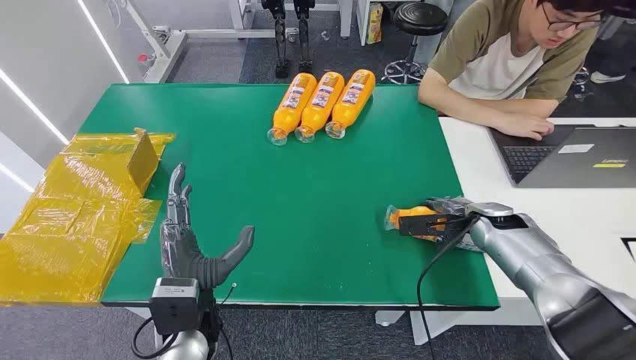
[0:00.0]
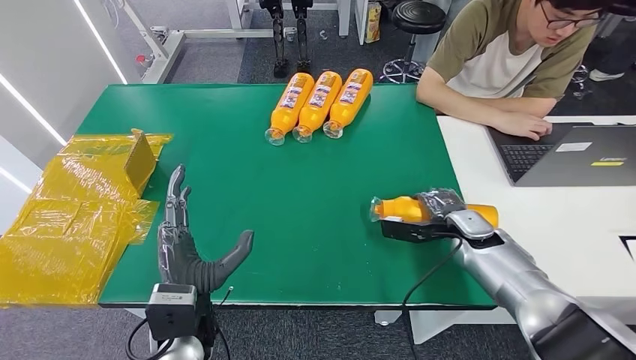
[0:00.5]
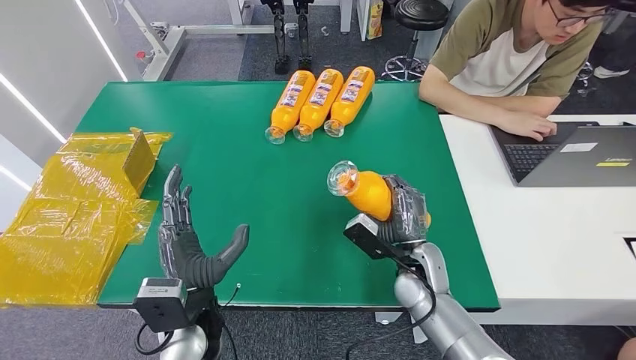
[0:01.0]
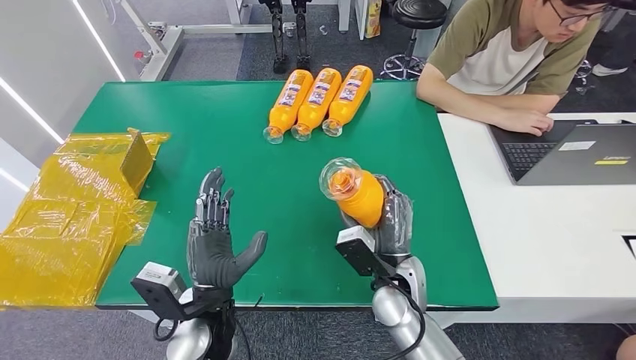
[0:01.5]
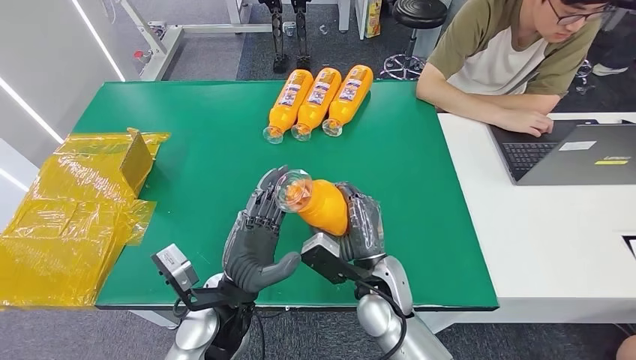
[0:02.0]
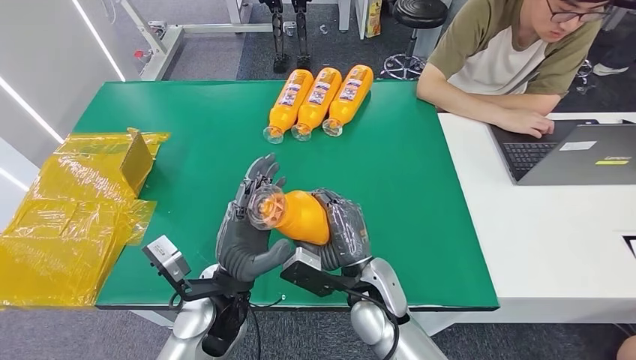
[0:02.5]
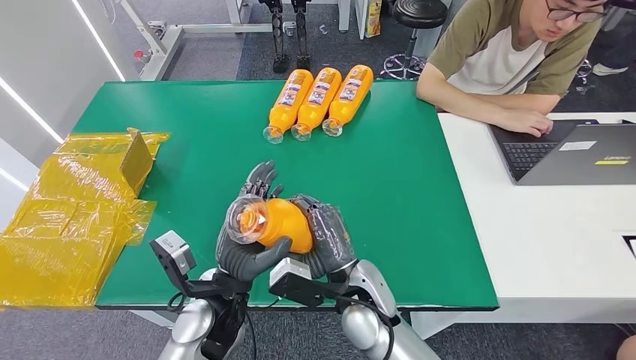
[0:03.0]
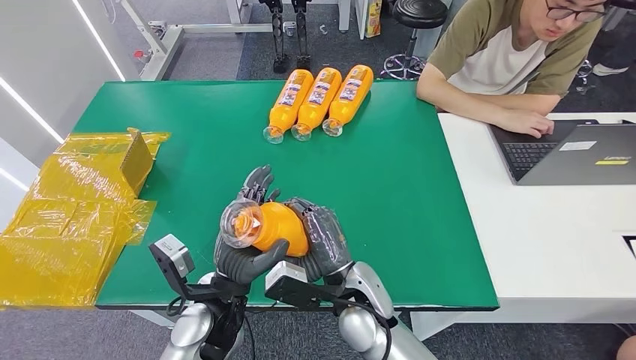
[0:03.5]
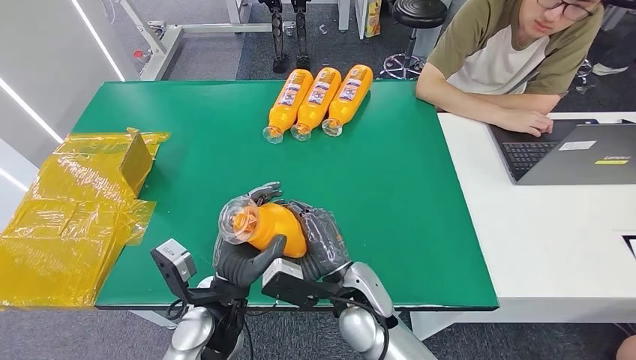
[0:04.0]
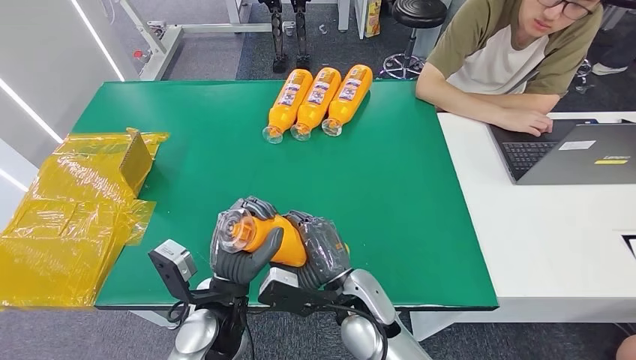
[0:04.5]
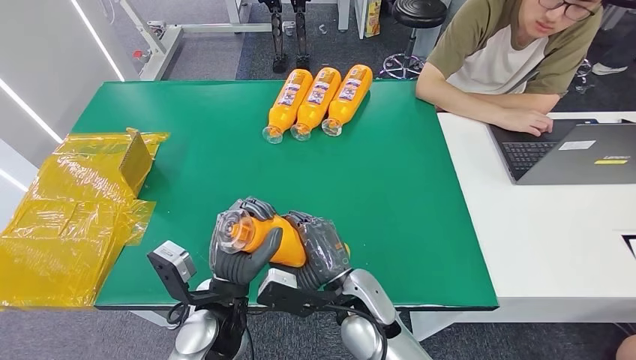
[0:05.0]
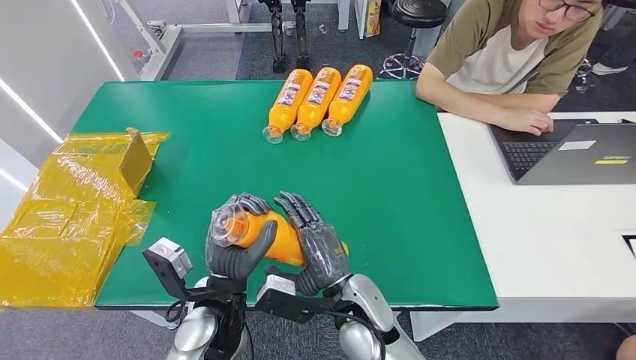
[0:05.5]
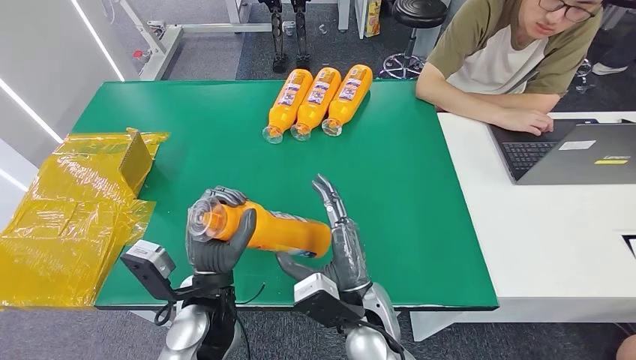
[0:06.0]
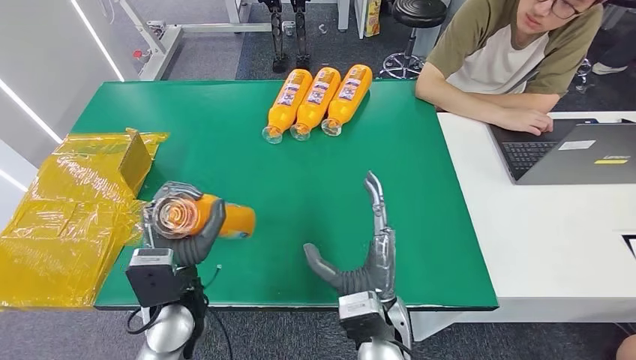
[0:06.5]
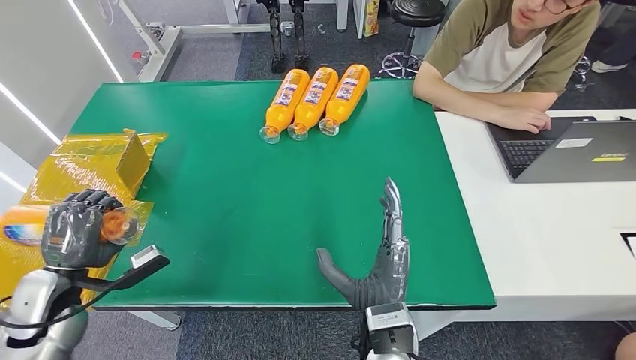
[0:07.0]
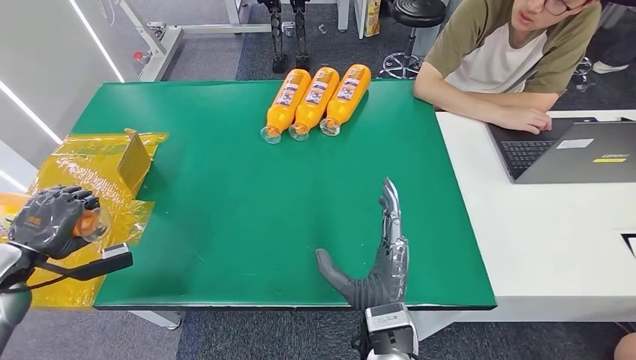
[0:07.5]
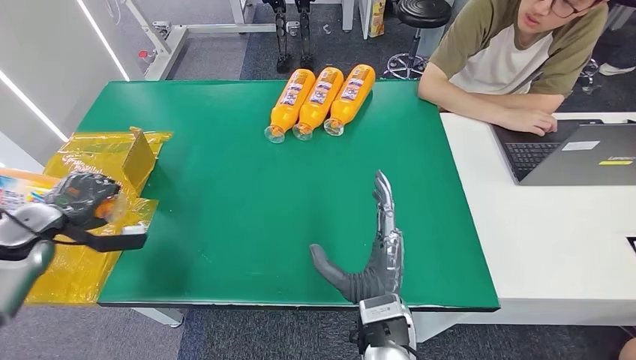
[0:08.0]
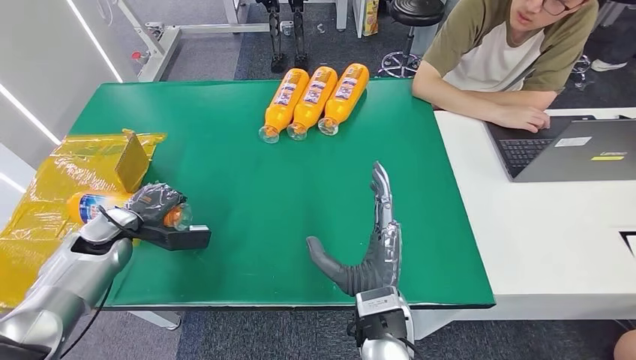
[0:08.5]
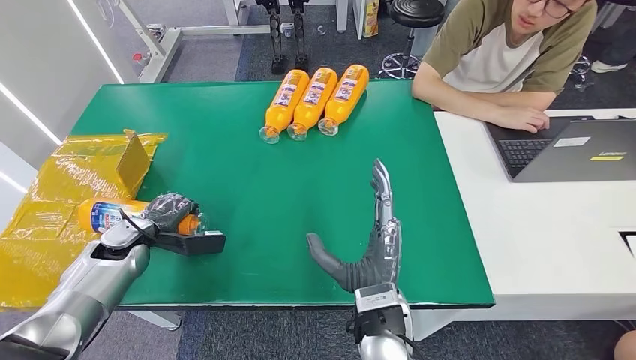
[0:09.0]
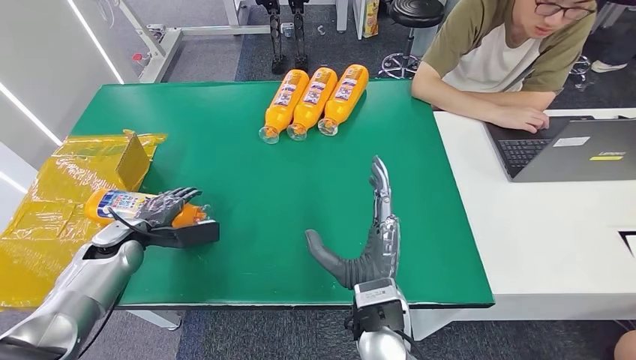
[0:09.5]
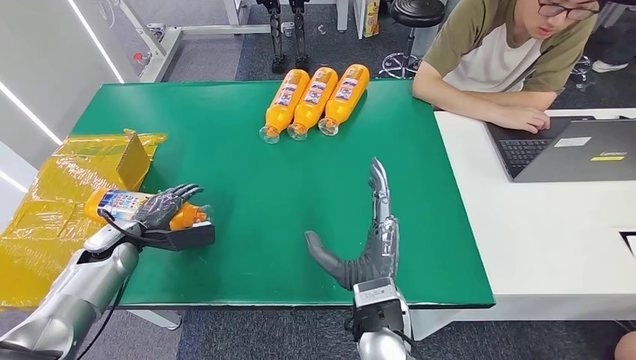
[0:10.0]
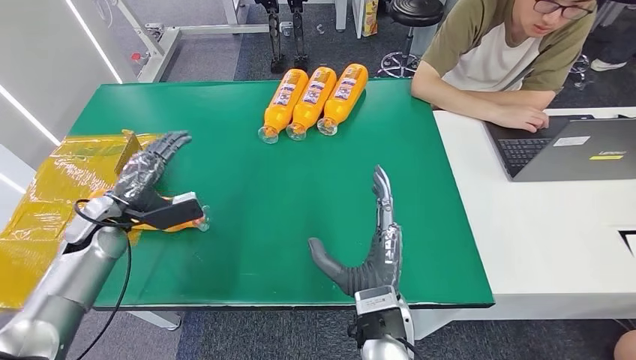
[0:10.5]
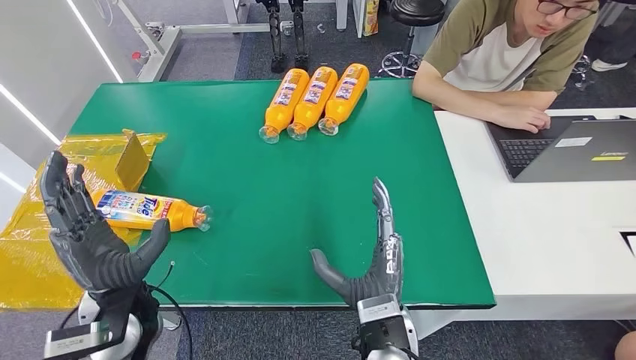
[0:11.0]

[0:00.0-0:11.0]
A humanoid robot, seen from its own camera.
Step, 0:00.0 to 0:03.5: Pick up the bottle from the table.
Step, 0:04.0 to 0:11.0: Turn the bottle to the front side.
0:02.0 to 0:03.5: The right hand changes place by some 5 cm.
0:03.5 to 0:05.5: The hands make only small movements.
0:05.5 to 0:07.5: The right hand moves about 5 cm. The left hand travels to the left by some 40 cm.
0:07.5 to 0:09.0: The left hand is displaced to the right, forward and downward by some 15 cm.
0:09.0 to 0:11.0: The left hand goes about 20 cm to the right, backward and upward.

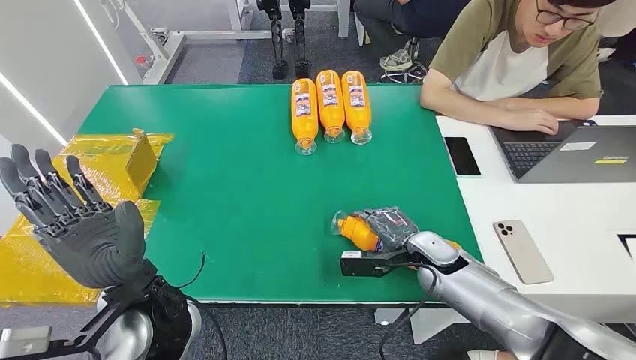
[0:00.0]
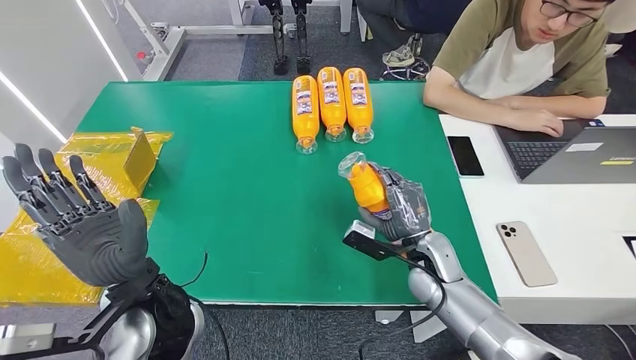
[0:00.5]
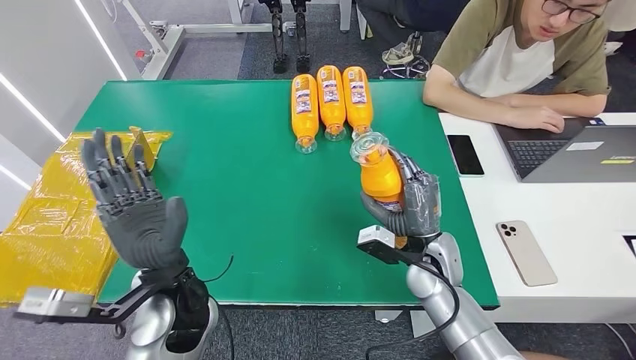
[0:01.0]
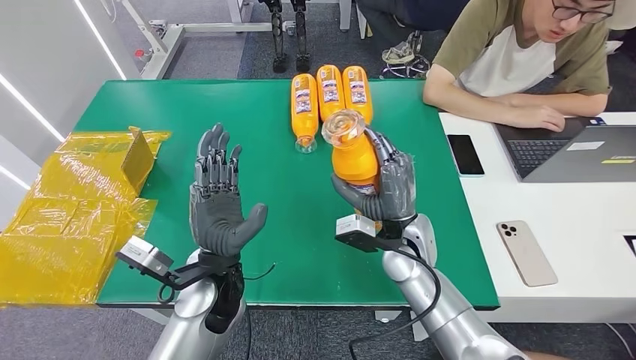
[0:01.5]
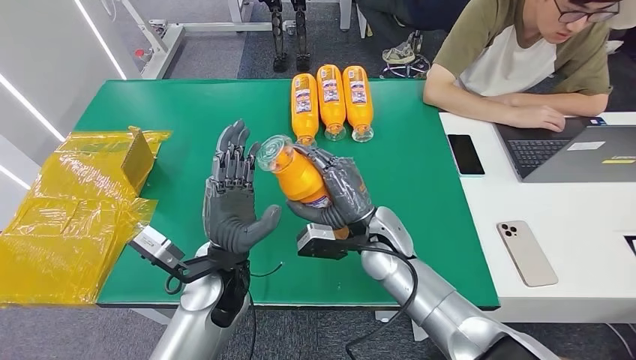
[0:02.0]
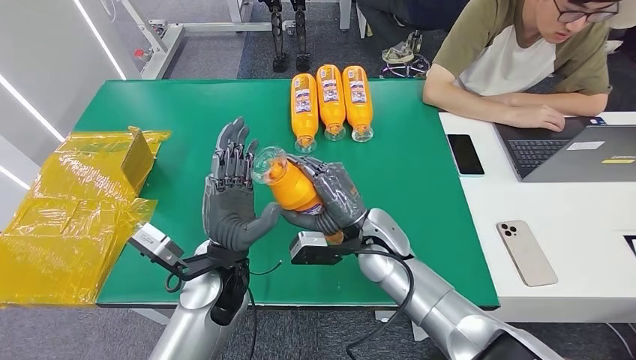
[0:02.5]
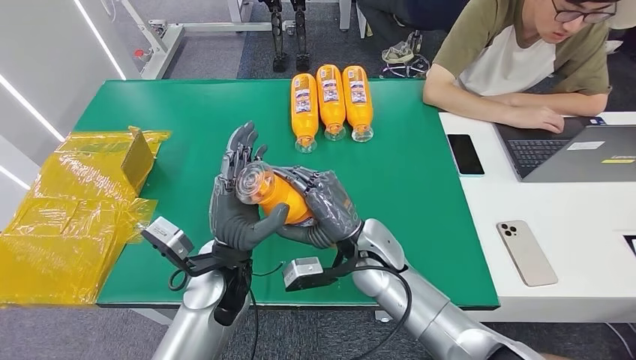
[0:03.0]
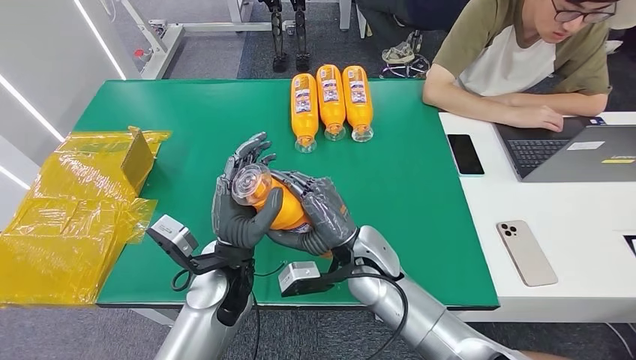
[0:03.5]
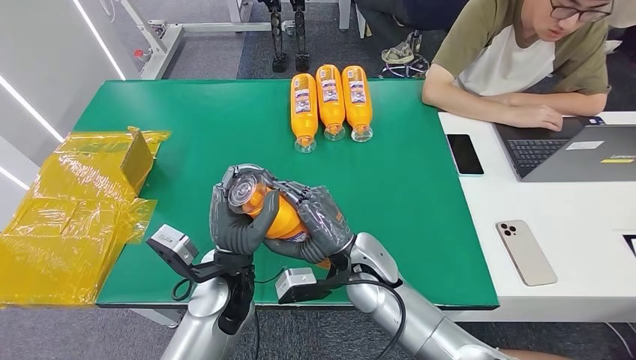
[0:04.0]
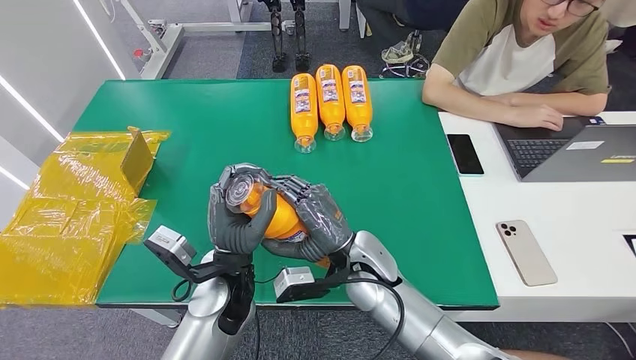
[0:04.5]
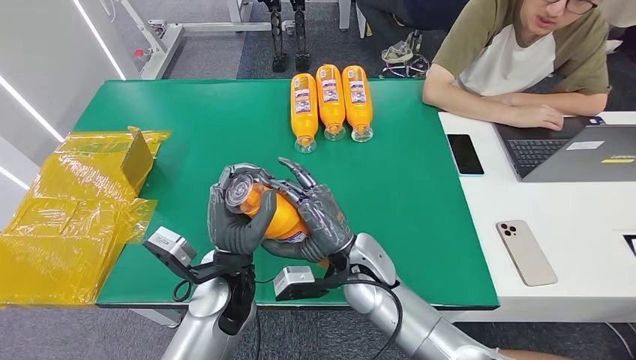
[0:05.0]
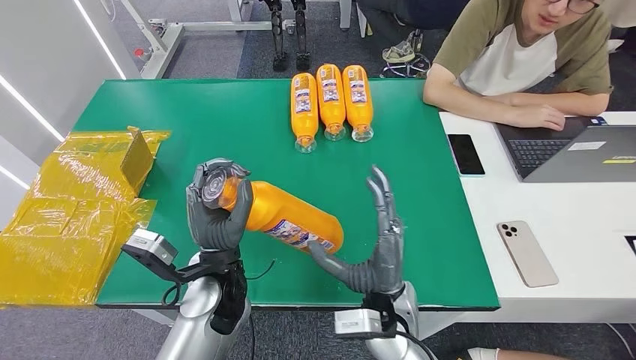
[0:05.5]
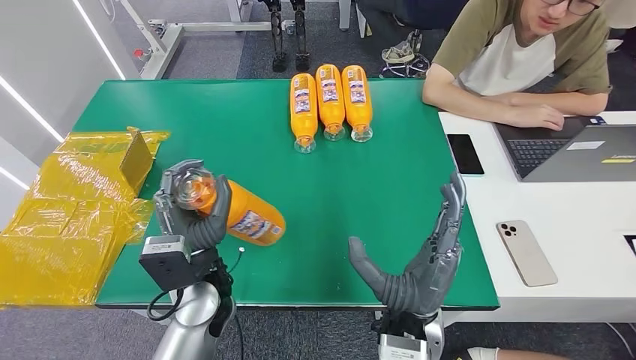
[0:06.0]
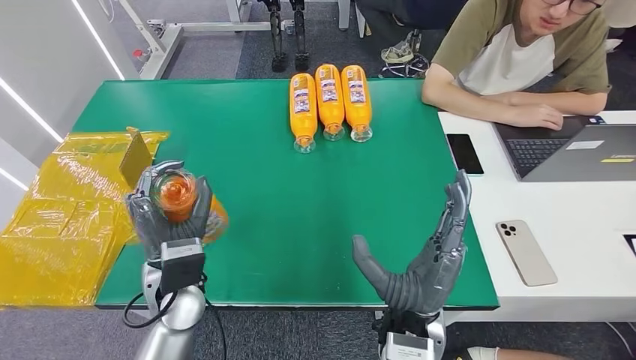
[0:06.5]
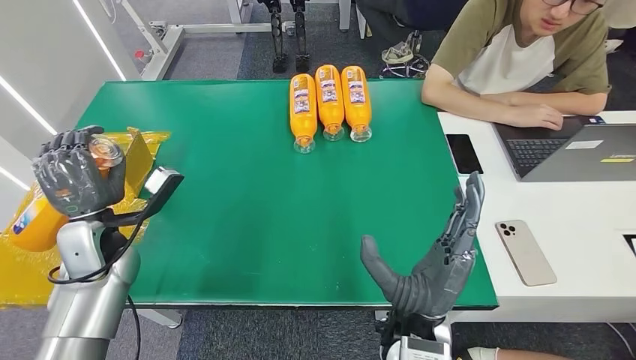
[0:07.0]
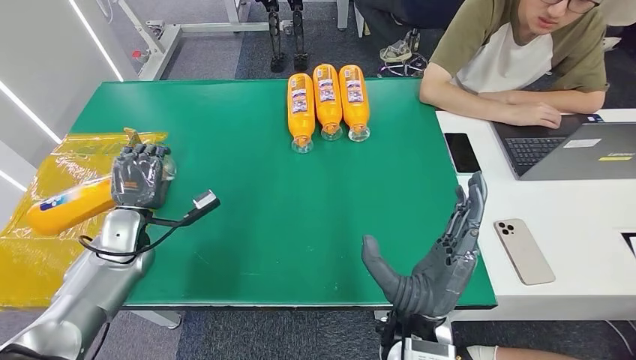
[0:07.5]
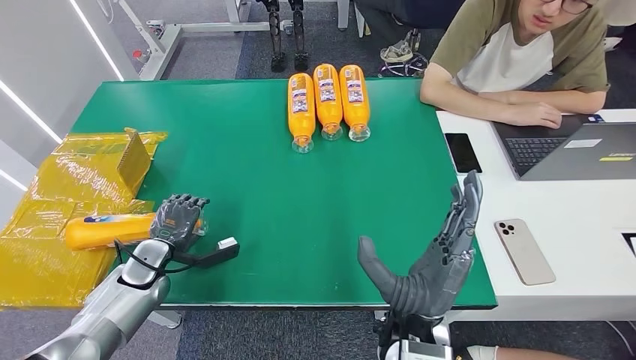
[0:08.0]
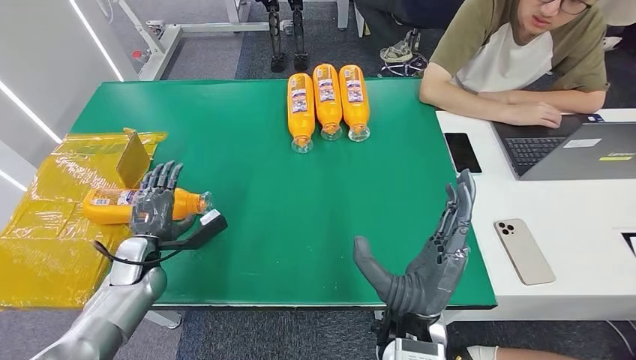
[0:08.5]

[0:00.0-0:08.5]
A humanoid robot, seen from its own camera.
Step, 0:00.0 to 0:01.5: Pick up the bottle from the table.
Step, 0:02.0 to 0:08.5: Turn the bottle to the front side.
0:02.0 to 0:04.0: The right hand moves about 5 cm.
0:04.0 to 0:06.5: The left hand is displaced to the left by some 5 cm, while the right hand is displaced backward by roughly 10 cm.
0:06.5 to 0:08.5: The left hand goes roughly 20 cm to the left and downward.
